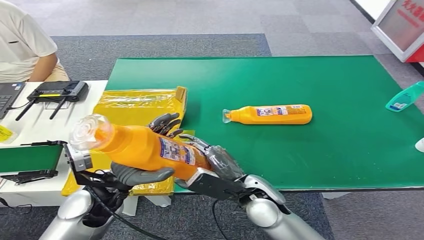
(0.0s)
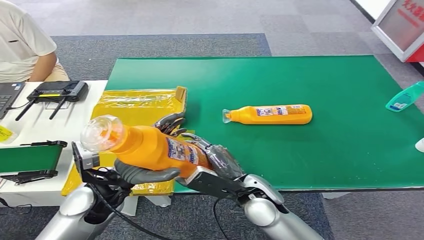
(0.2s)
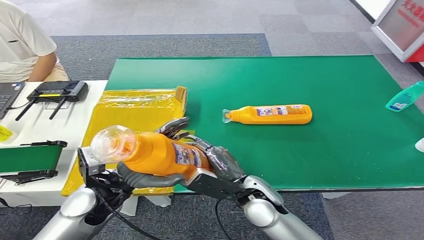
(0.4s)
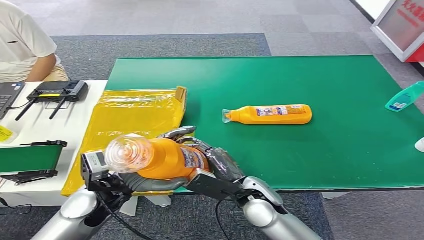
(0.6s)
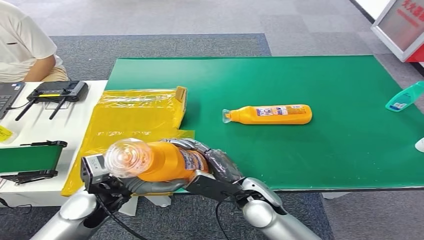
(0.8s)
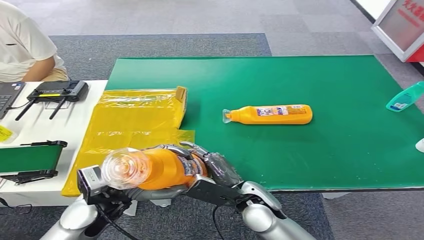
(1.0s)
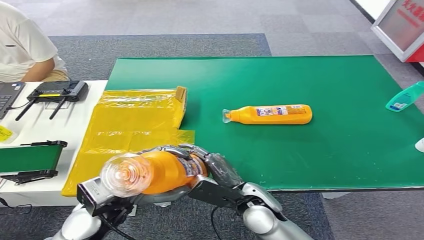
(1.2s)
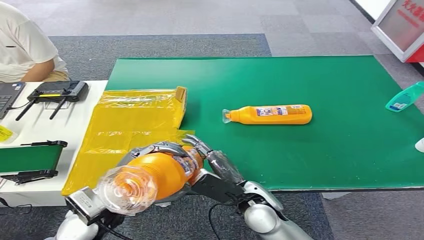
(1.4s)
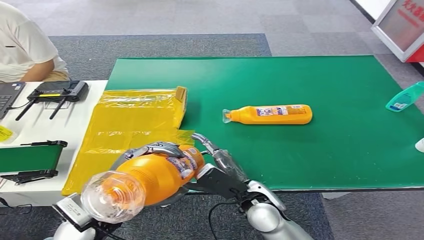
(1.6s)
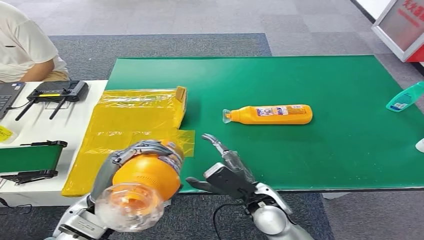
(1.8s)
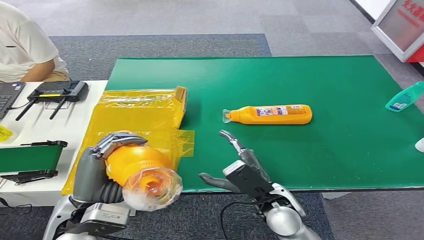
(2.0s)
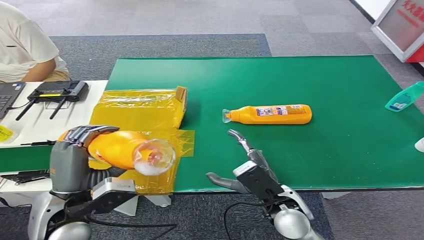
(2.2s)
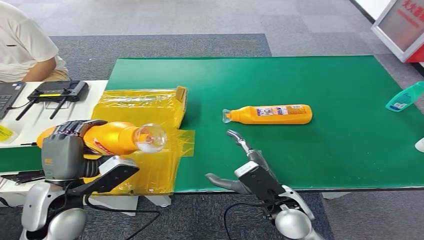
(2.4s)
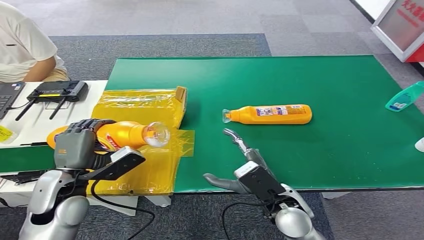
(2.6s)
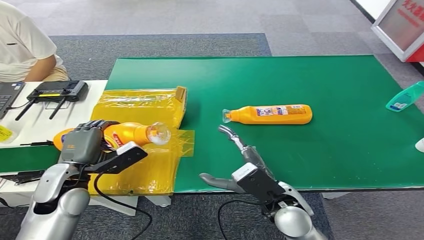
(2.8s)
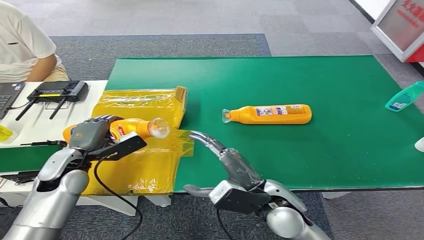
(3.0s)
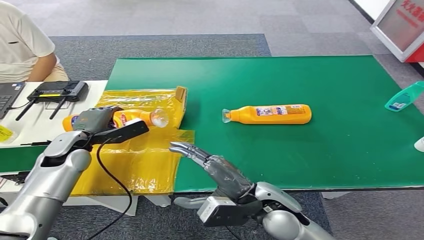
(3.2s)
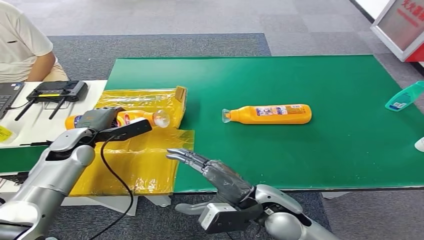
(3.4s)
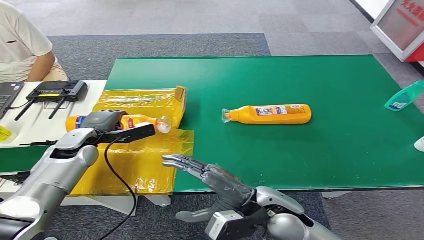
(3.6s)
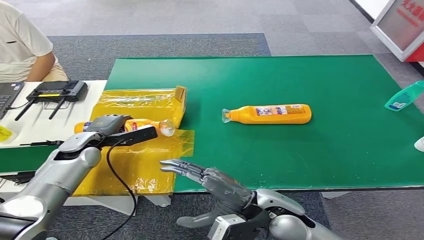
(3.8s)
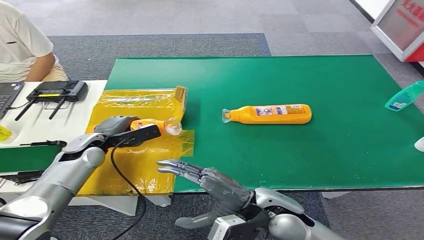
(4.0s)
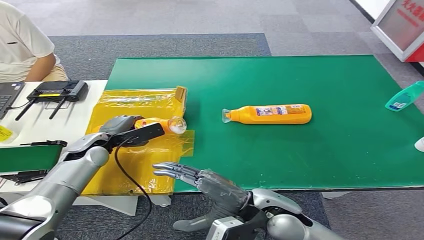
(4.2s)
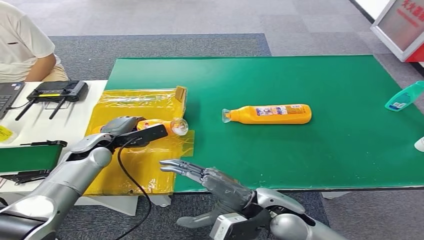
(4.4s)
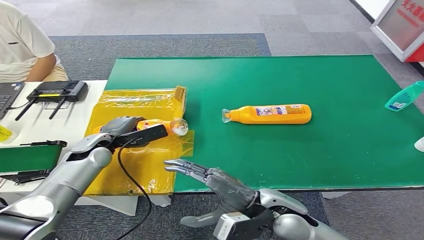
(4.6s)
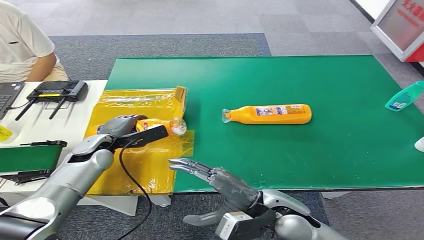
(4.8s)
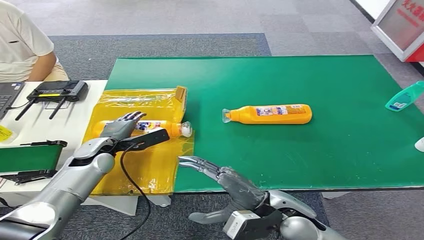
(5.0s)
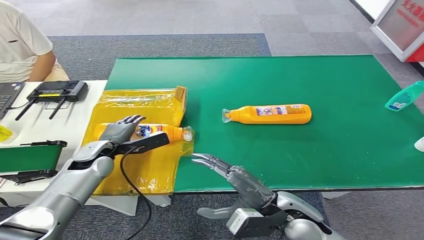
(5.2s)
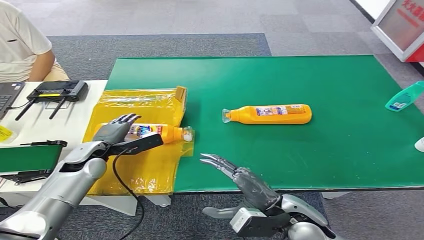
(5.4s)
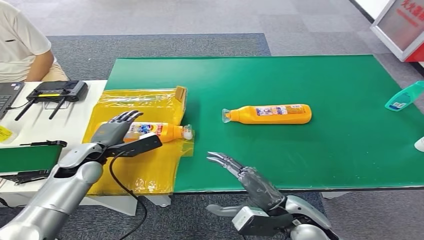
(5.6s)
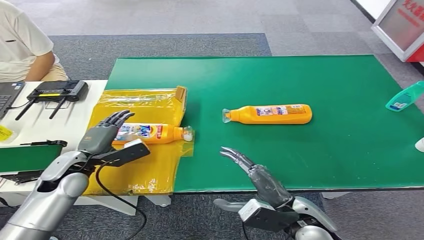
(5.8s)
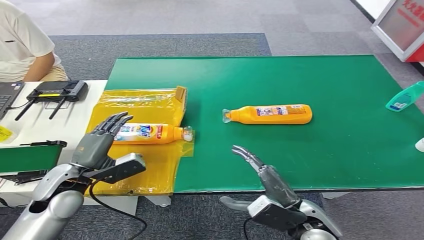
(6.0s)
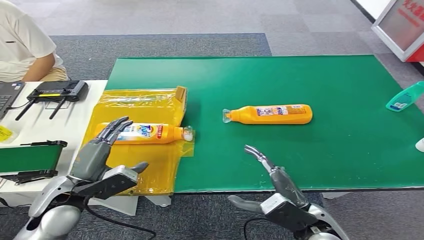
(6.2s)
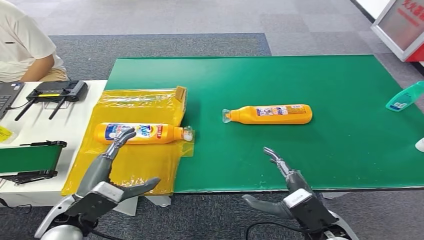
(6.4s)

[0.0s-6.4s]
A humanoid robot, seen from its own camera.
Step, 0.0s to 6.4s: Turn the bottle to the front side.
0.0s to 1.6s: The left hand moves roughly 5 cm.
3.2s to 4.8s: The left hand moves some 5 cm.
4.8s to 6.4s: The left hand moves backward, about 20 cm, while the right hand shifts about 10 cm to the right and backward.
